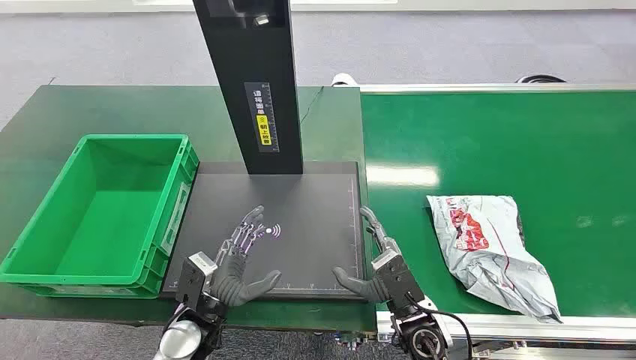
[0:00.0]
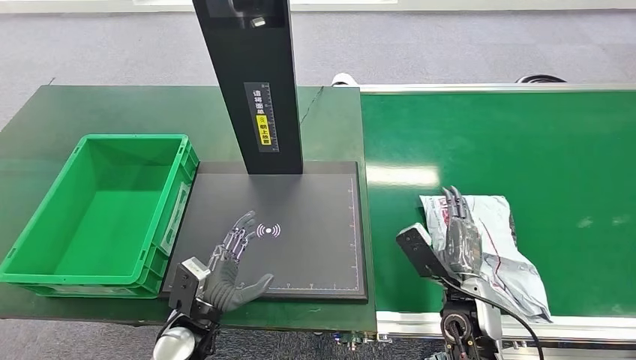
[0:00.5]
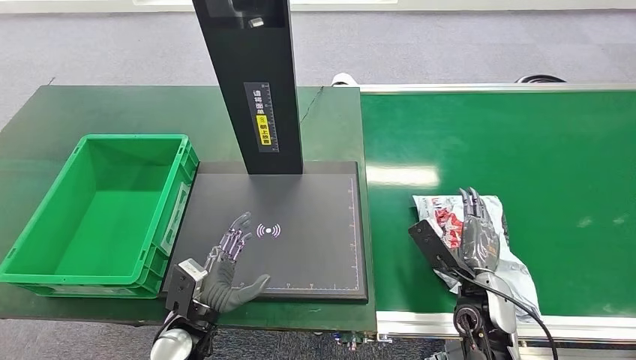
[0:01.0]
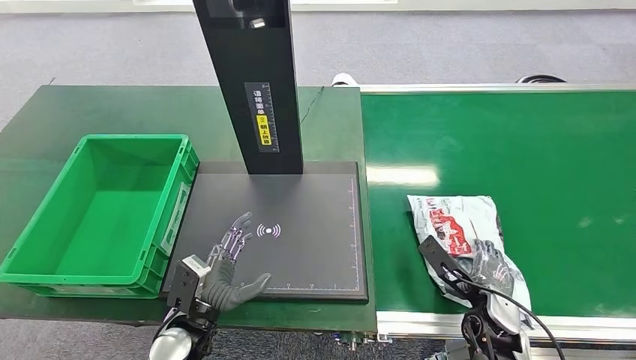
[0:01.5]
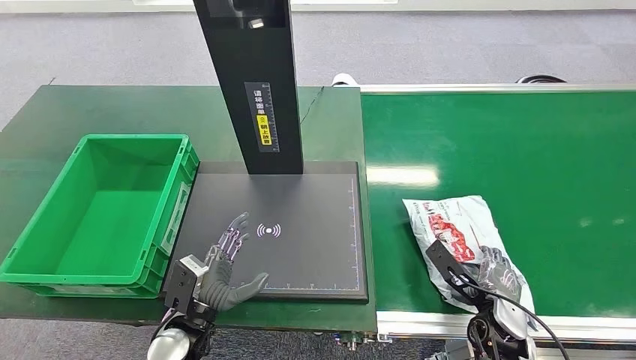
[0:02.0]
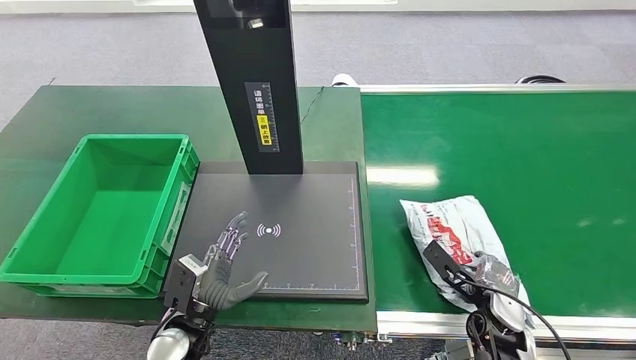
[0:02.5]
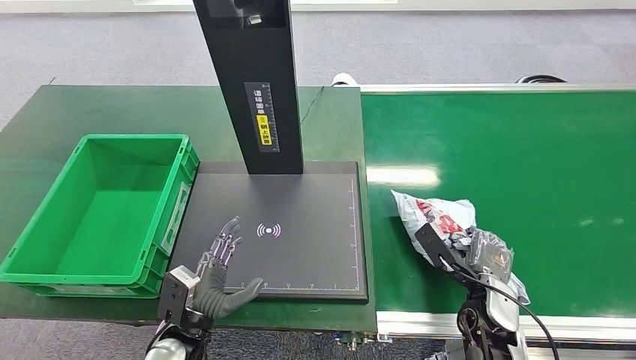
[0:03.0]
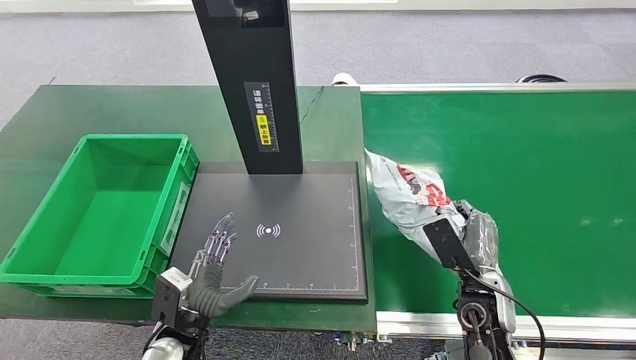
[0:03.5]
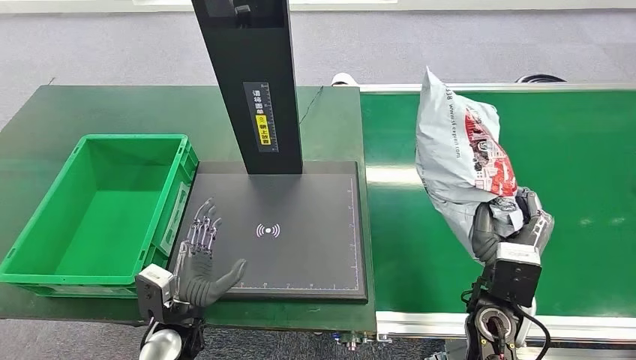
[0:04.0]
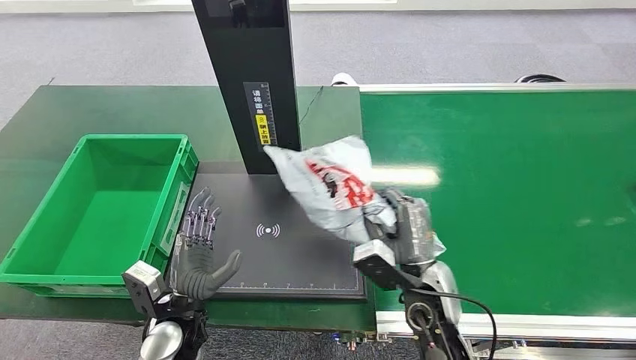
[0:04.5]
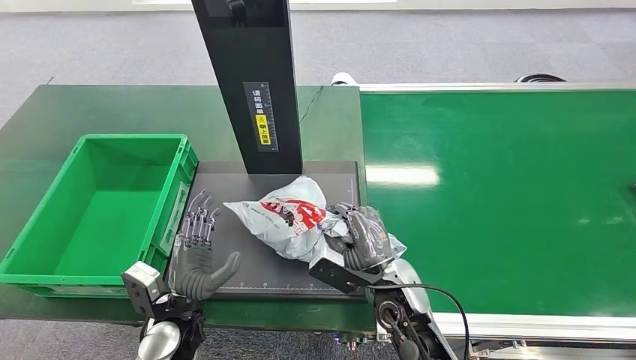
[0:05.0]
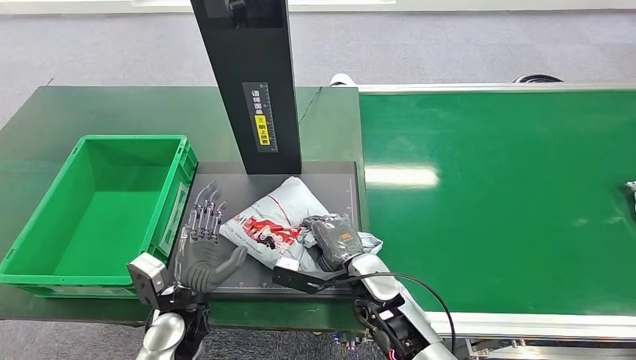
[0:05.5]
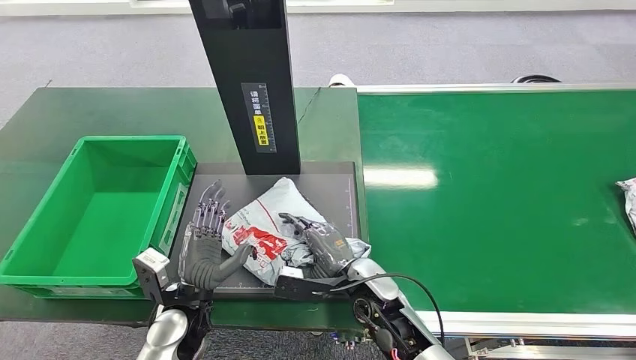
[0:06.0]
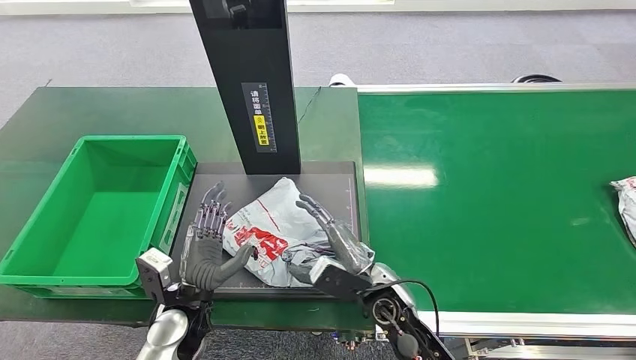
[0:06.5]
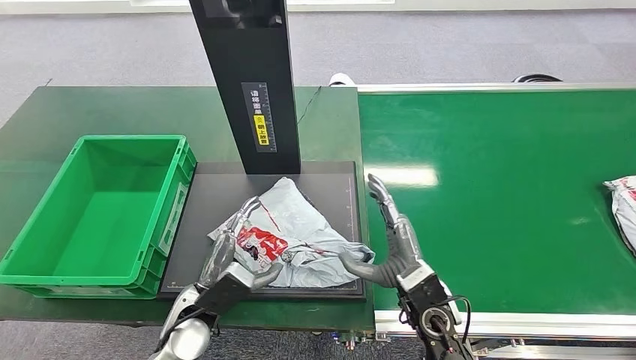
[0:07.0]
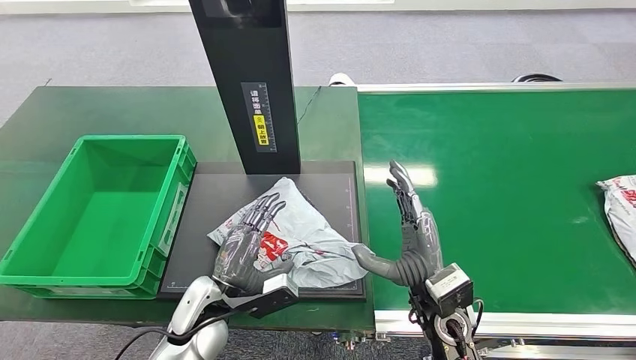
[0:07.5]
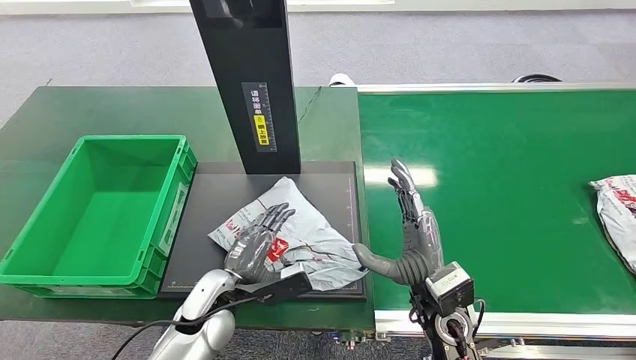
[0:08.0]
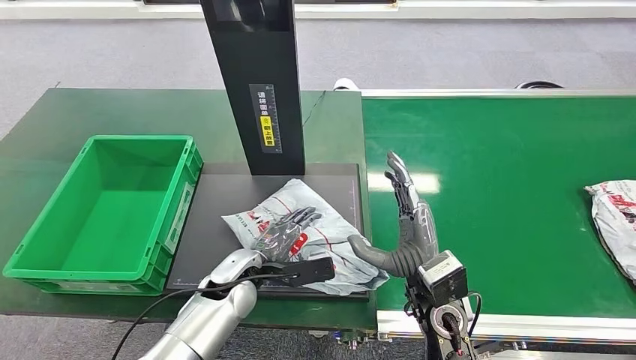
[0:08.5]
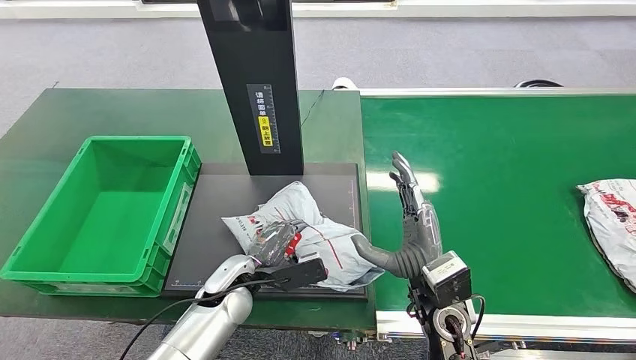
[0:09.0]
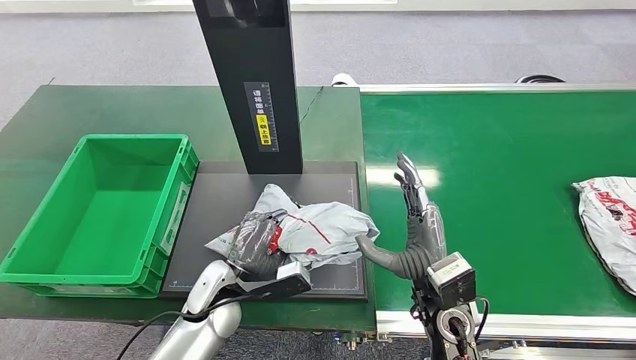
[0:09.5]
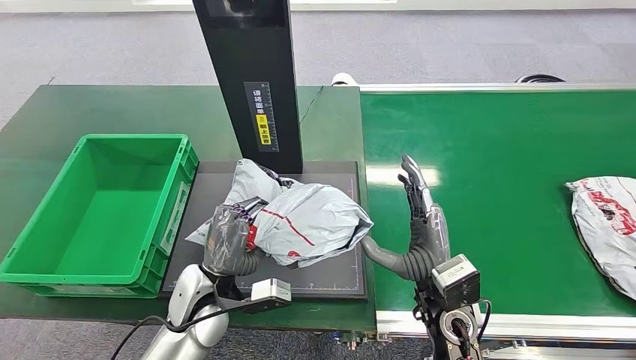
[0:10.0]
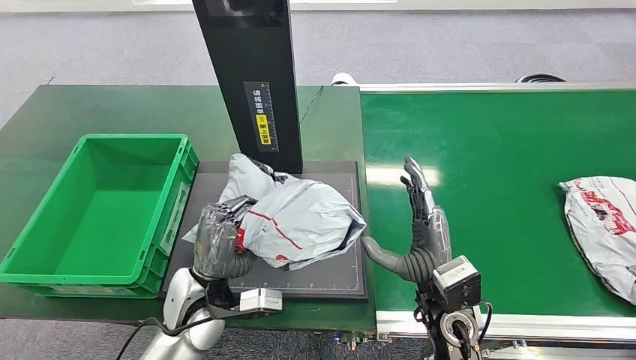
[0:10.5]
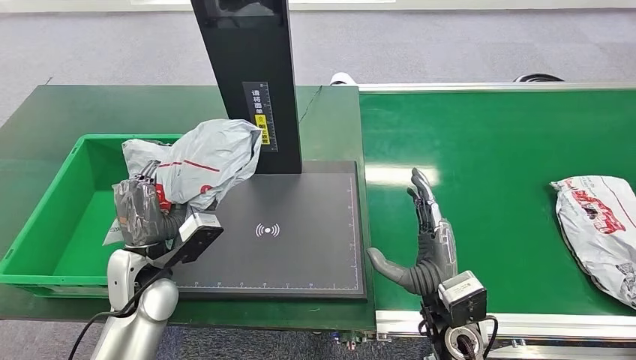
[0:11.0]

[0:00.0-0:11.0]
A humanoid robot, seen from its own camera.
Step, 0:00.0 to 0:03.5: Pick up the package from the conveyor belt.
Step, 0:04.0 to 0:07.0: Place the package onto the inbound machine.
Step, 0:07.5 to 0:10.0: Pick up the package from the inbound machine.
0:02.0 to 0:03.5: The right hand shifts by roughly 5 cm.
0:03.5 to 0:05.5: The right hand moves to the left, approximately 15 cm.
0:05.5 to 0:07.5: The right hand goes about 10 cm to the right and upward.

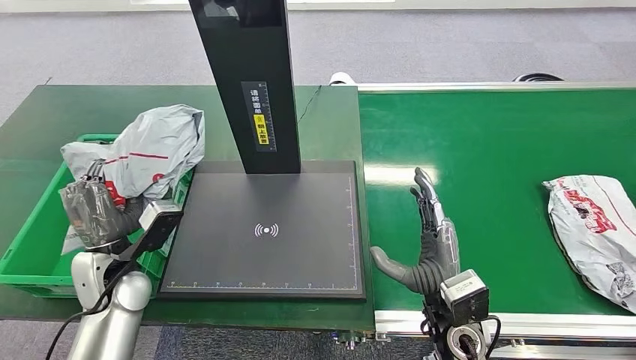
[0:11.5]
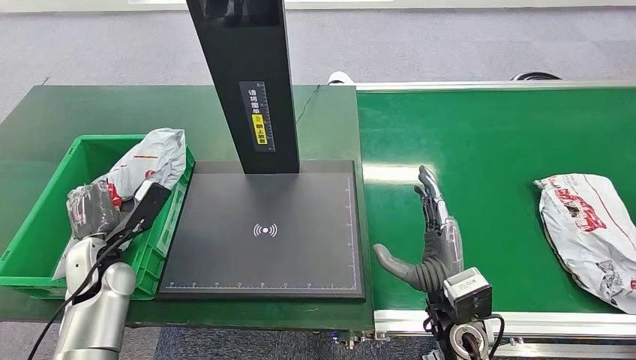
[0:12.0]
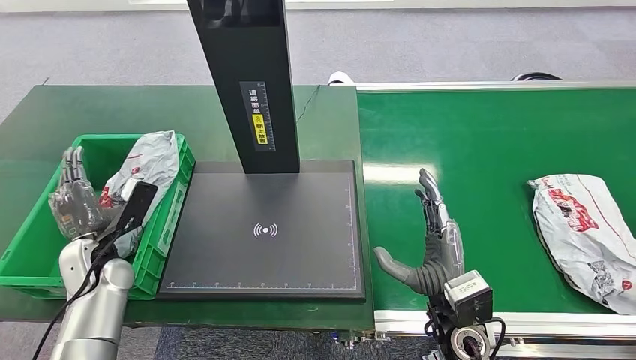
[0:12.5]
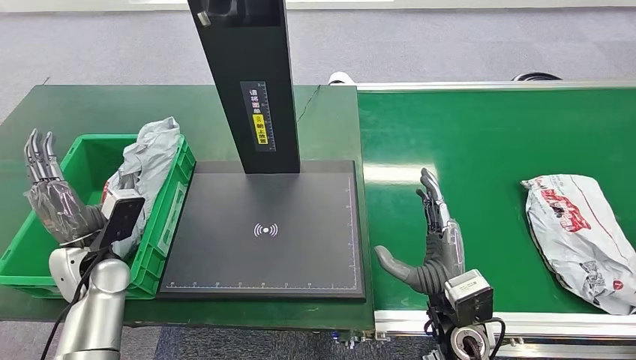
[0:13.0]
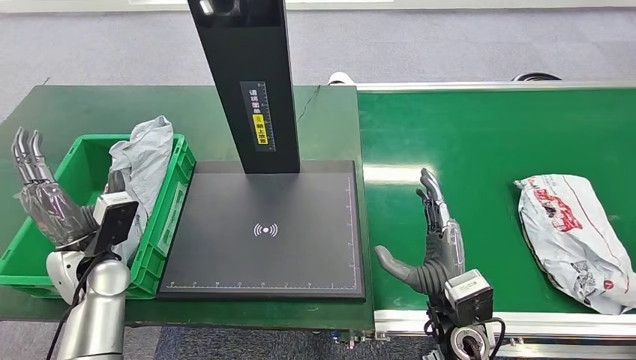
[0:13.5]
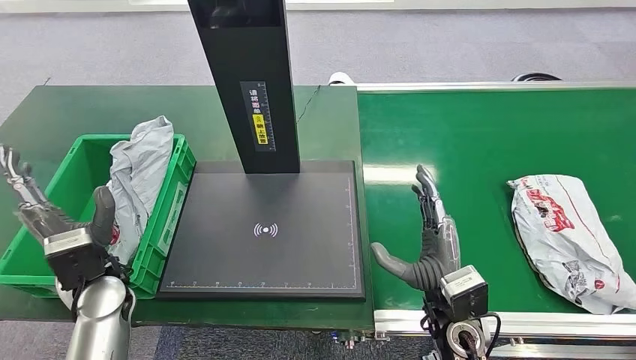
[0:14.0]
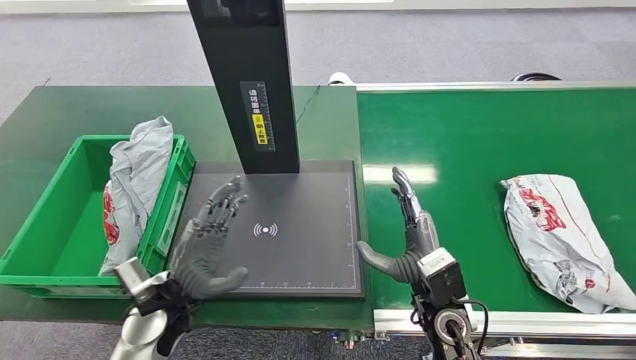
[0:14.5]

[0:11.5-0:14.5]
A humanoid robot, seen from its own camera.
Step, 0:11.5 to 0:14.5: Place the package into the parcel locker.
0:11.5 to 0:13.0: The left hand goes roughly 5 cm to the left.
0:13.0 to 0:14.5: The left hand moves to the right and backward, roughly 15 cm.
